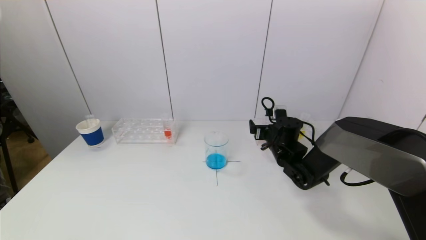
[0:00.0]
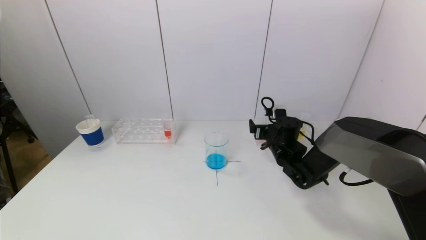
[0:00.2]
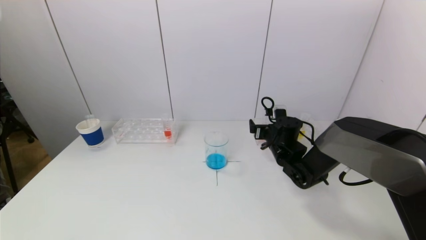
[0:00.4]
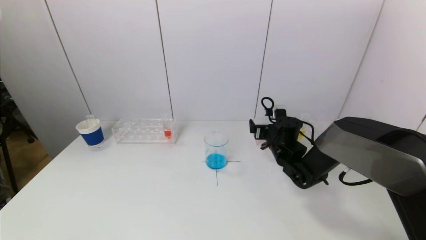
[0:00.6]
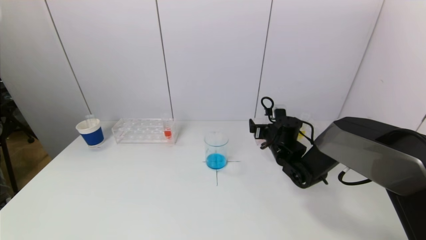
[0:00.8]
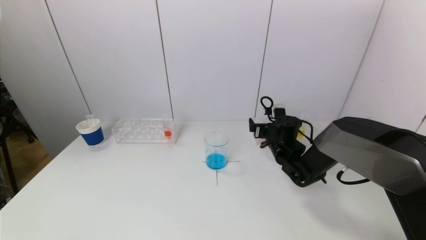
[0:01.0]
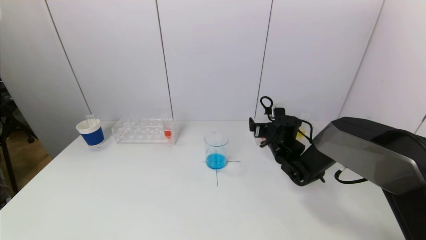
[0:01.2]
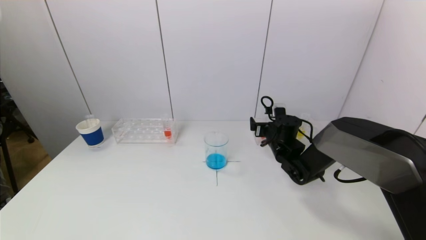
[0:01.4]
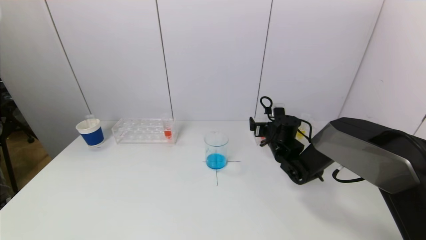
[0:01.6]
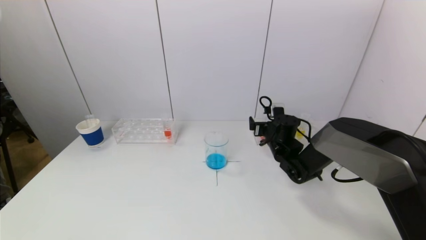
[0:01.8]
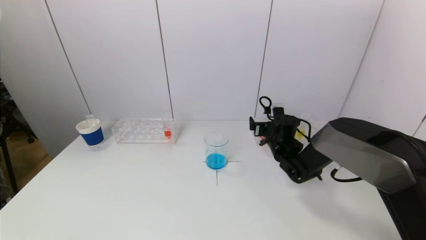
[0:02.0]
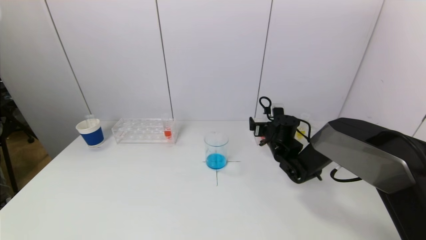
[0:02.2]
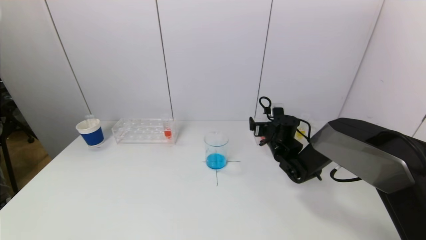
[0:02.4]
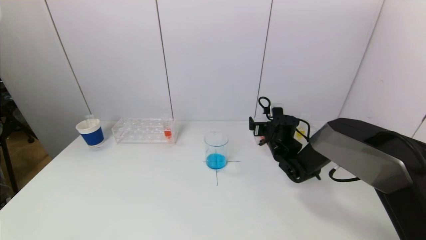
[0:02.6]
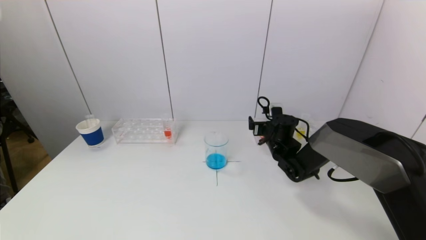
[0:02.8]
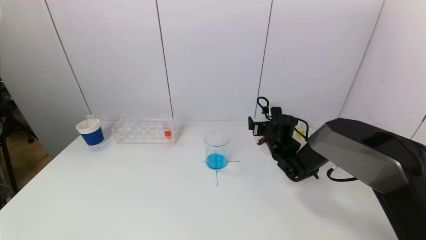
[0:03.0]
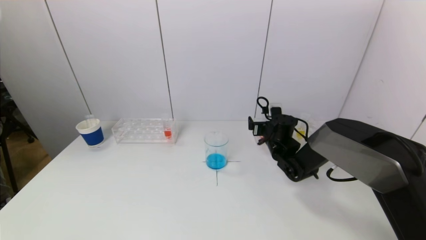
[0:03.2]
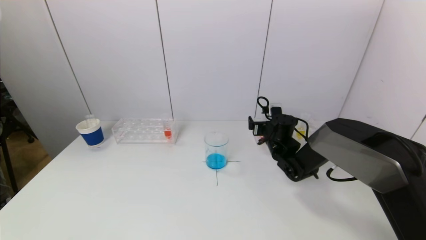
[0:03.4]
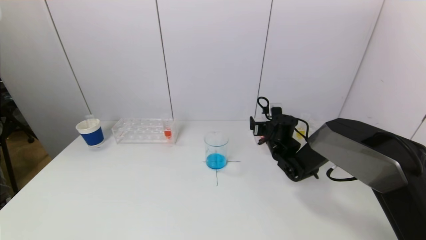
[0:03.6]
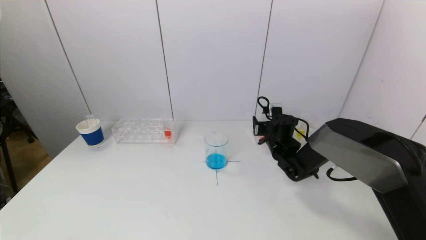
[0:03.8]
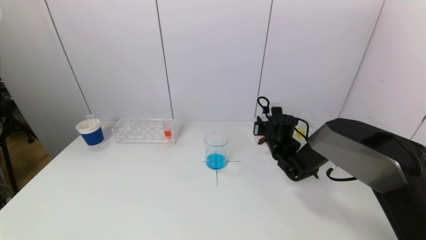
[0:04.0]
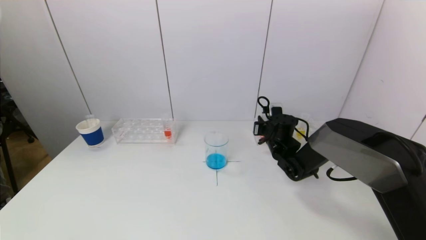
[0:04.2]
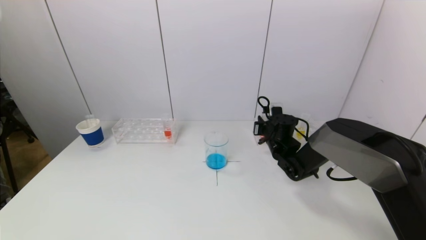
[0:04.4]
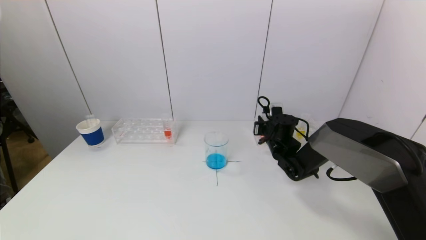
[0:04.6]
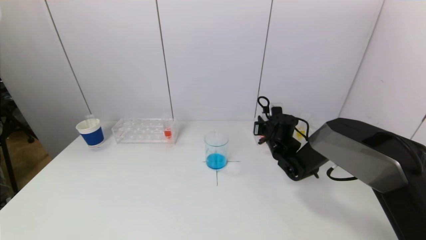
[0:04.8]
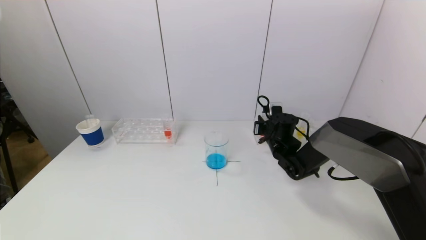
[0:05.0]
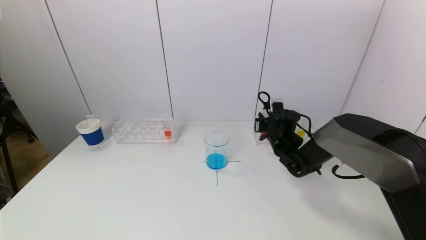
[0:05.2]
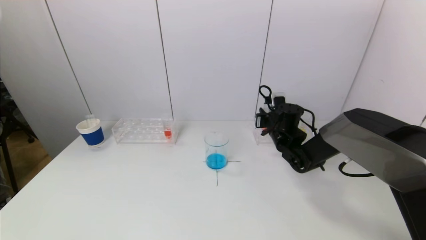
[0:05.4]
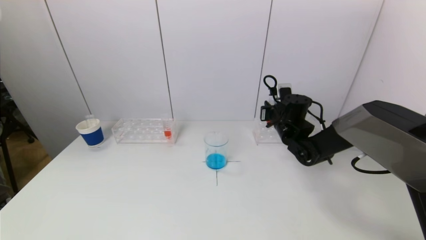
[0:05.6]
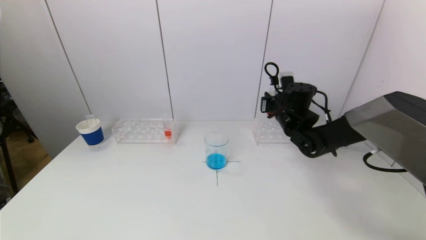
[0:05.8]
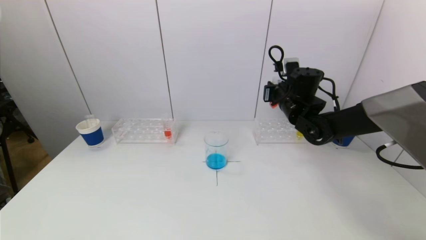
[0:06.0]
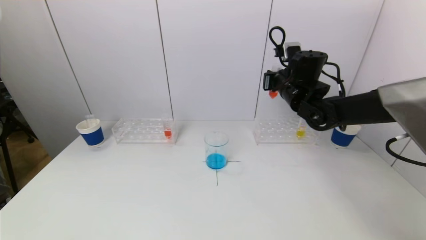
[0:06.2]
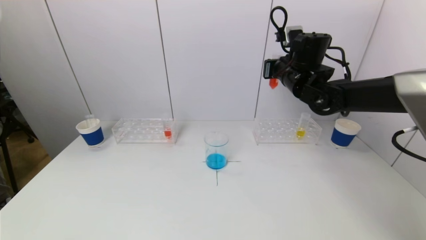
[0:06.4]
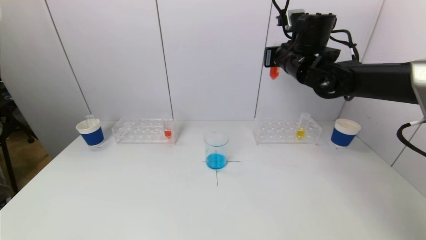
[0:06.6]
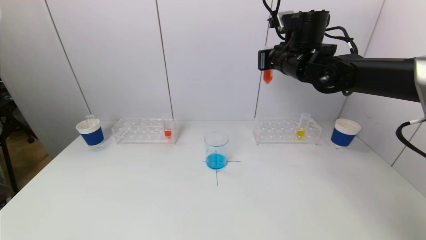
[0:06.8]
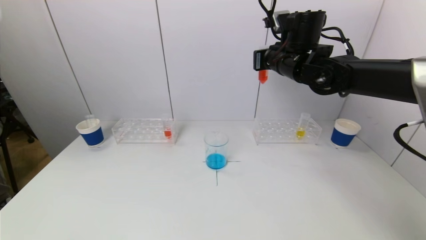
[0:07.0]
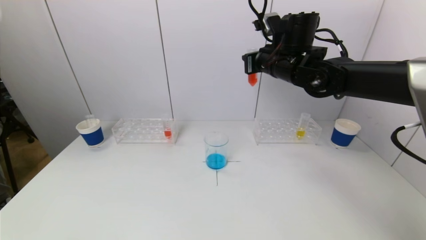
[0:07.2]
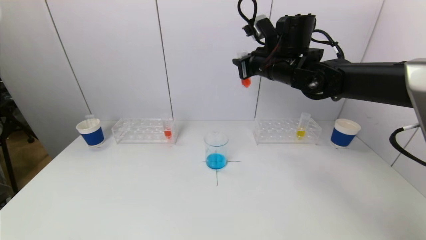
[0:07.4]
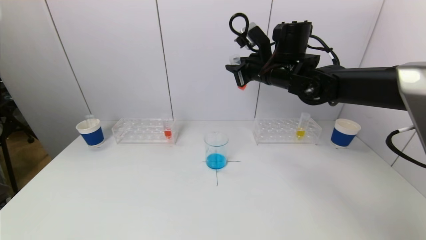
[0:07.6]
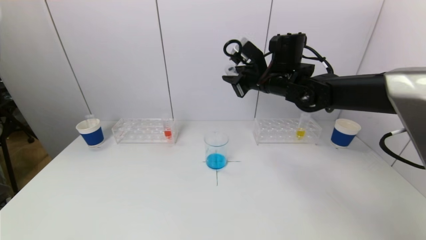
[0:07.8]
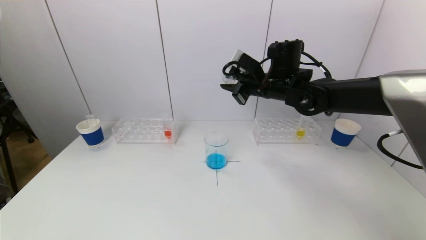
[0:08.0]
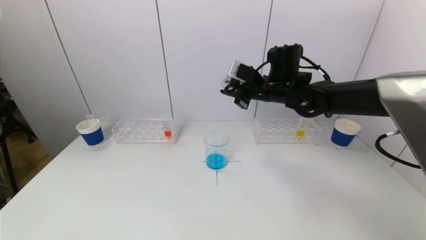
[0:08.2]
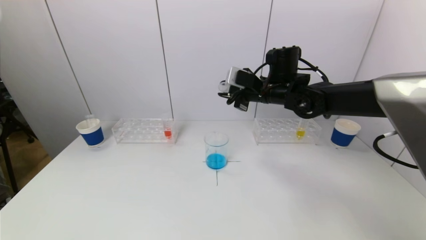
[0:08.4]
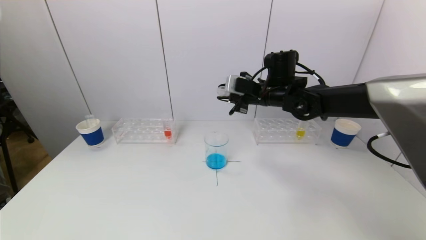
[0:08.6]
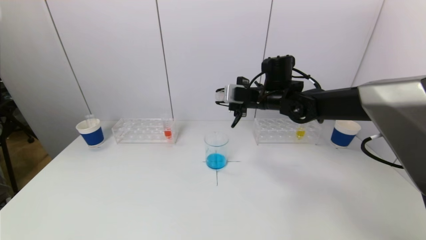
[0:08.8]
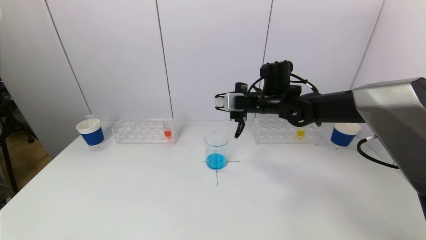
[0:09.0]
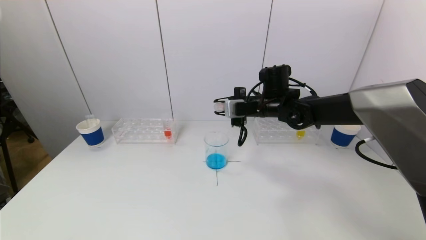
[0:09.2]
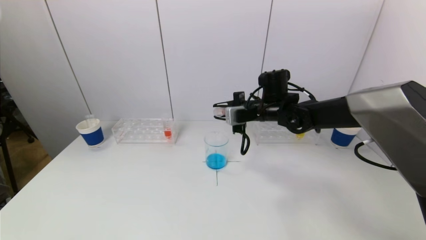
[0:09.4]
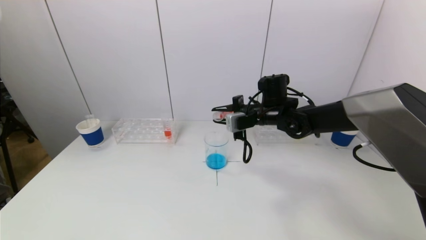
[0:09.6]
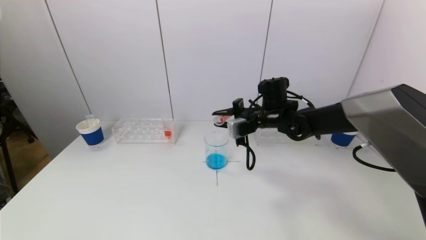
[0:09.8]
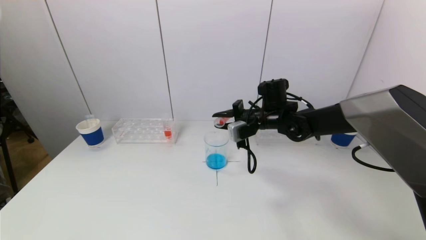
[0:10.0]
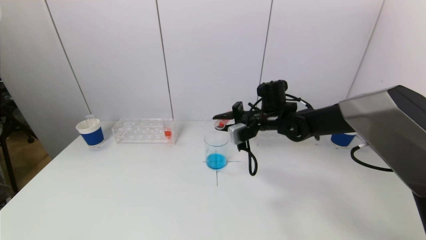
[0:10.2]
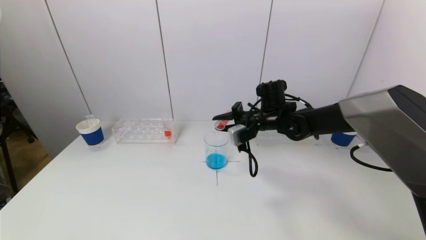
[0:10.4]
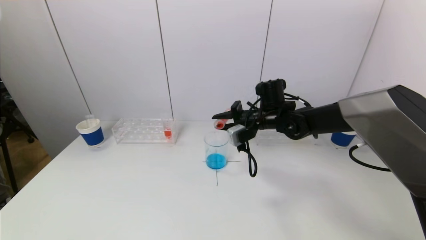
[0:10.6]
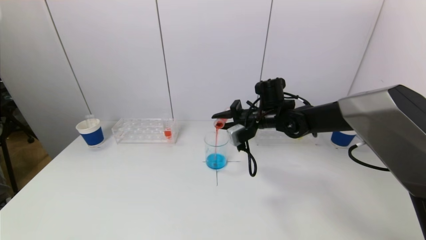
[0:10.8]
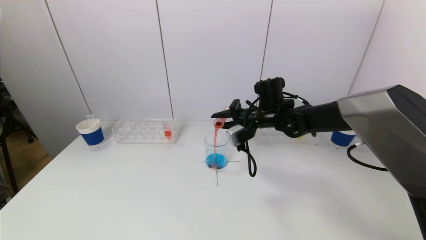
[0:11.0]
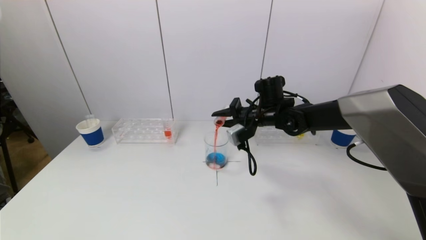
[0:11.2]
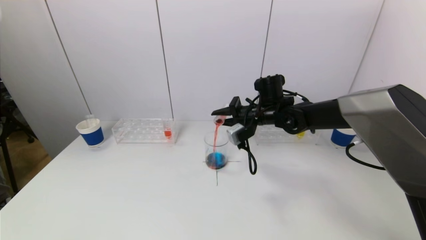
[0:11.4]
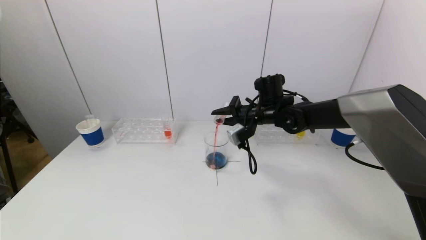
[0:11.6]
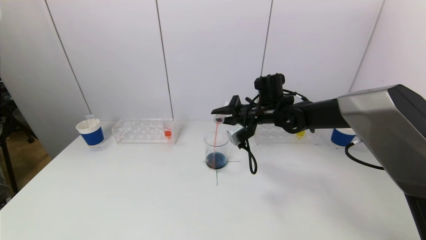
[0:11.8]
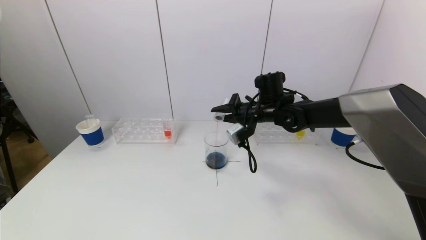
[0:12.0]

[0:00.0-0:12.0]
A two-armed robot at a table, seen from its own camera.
Task of the whole recording: pick up a test tube with pigment on left test tube rack and a test tube with pigment on right test tube rack by grippers and pour them into the beaker.
Step, 0:00.0 to 0:04.2: Grasp the red reagent with the right gripper.
0:00.0 to 0:01.6: The grippers make only small movements.
0:01.6 to 0:03.0: The two grippers keep their place.
0:04.4 to 0:06.0: The right gripper goes about 15 cm upward.
0:06.0 to 0:07.6: The right gripper is displaced upward and to the left by about 10 cm.
0:07.6 to 0:09.0: The right gripper shifts some 10 cm downward.
0:10.4 to 0:12.0: The grippers make only small movements.

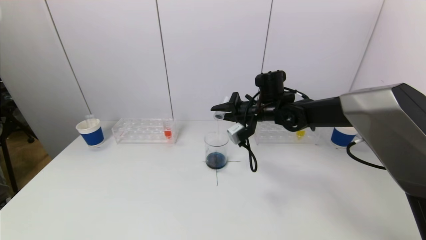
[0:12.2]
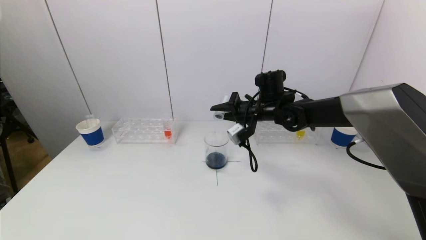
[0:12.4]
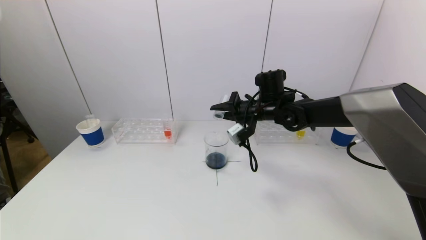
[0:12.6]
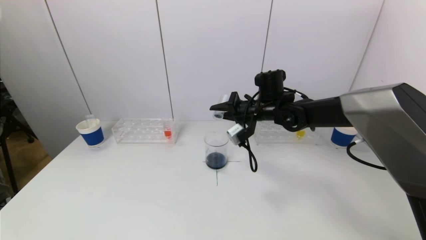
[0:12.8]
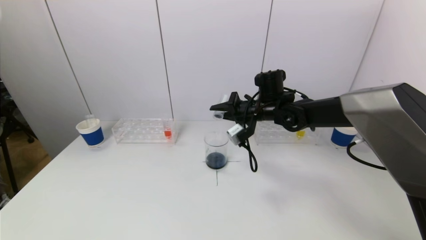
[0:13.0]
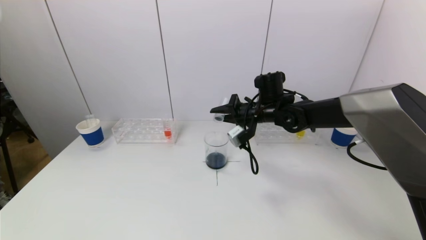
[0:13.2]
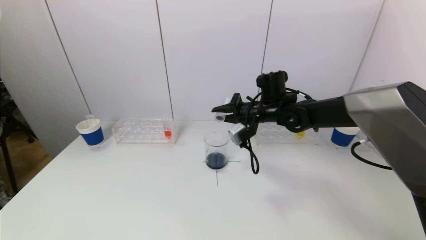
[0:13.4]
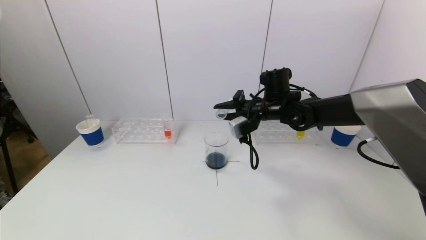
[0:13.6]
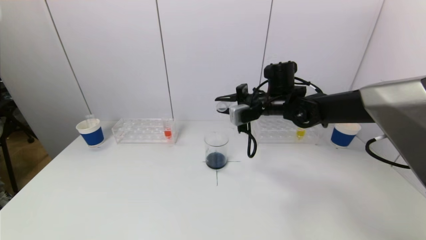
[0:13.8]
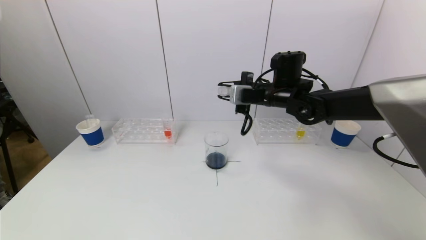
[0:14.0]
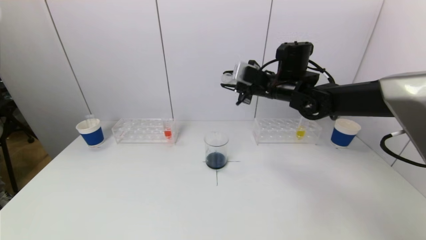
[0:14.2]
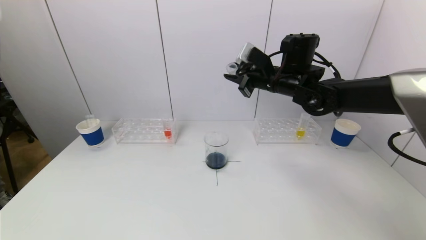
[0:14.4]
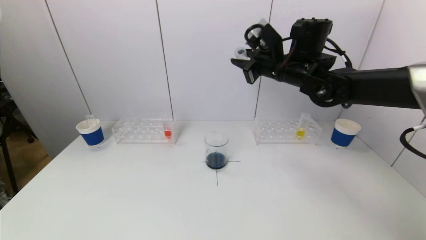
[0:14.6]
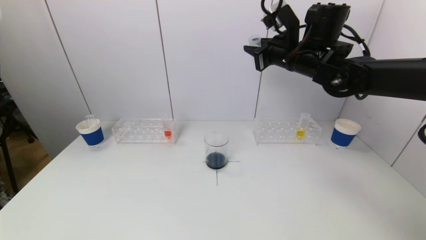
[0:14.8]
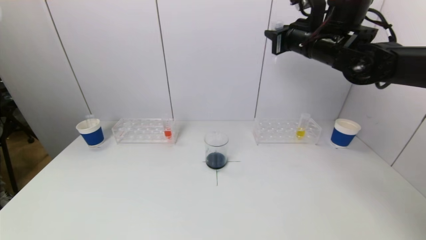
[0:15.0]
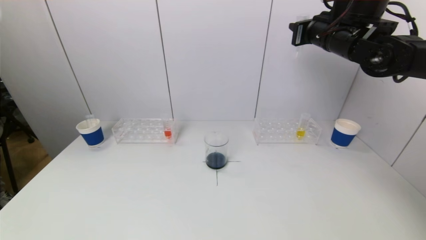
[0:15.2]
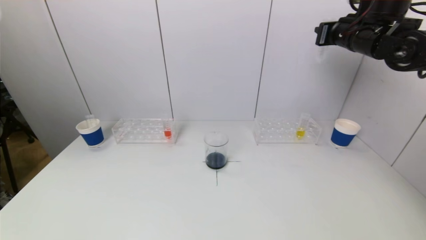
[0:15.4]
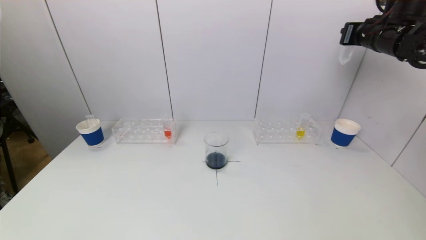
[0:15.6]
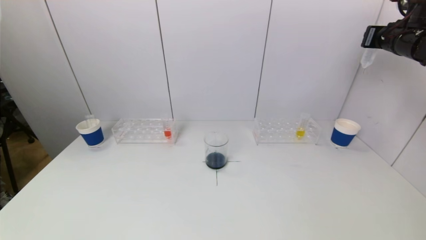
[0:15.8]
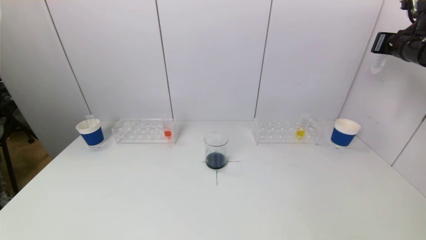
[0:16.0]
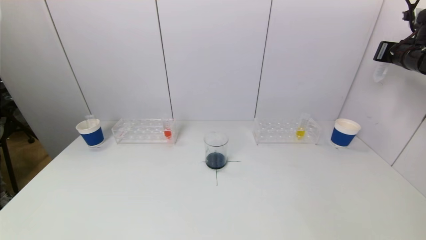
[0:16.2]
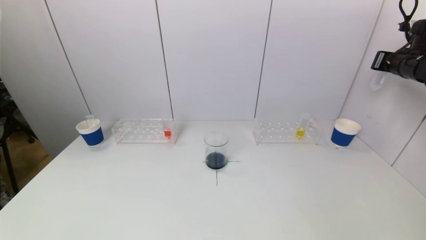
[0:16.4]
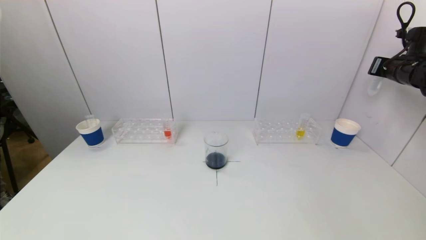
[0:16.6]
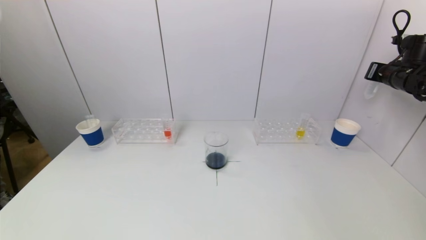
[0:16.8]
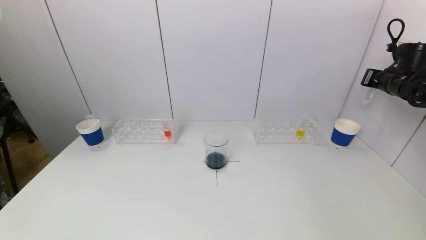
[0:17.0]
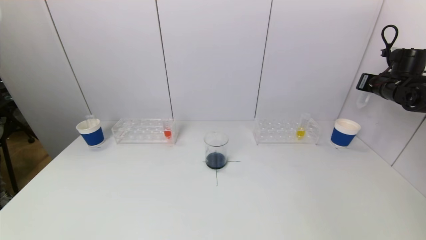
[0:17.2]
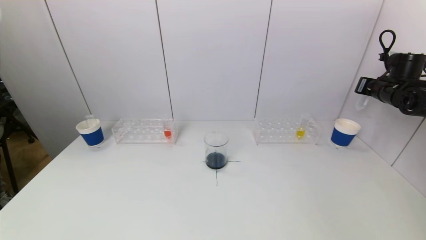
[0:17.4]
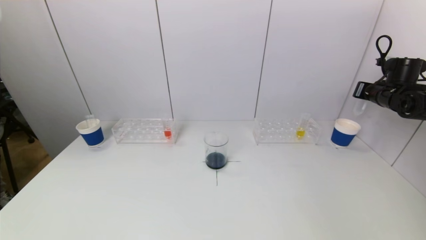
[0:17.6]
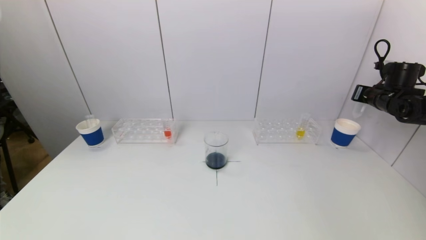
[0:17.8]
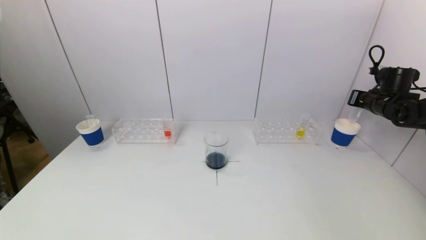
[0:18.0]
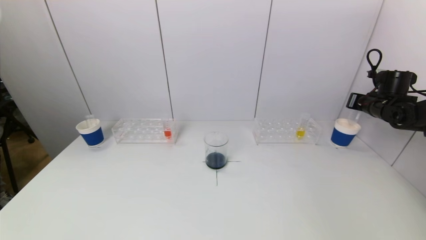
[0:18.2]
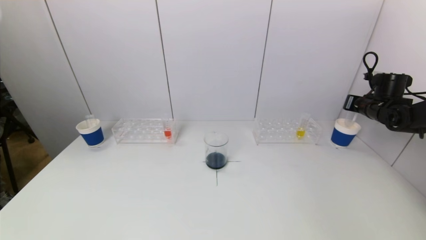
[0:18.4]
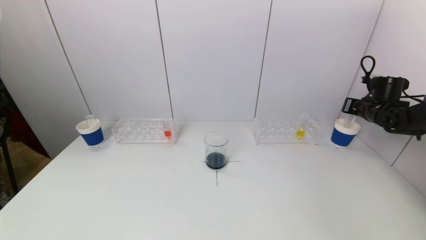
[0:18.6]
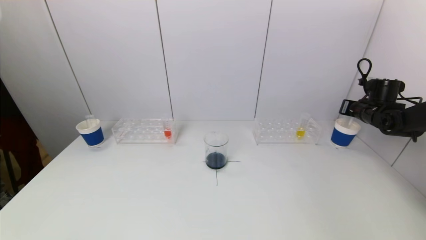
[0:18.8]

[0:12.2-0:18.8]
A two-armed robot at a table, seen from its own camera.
Task of the whole recording: pick up a test tube with pigment on left test tube rack and a test tube with pigment on right test tube rack by grippers and pour them into the beaker.
0:13.8 to 0:15.4: The right gripper is displaced to the right and upward by approximately 20 cm.
0:15.4 to 0:17.2: The right gripper goes approximately 20 cm to the right and downward.
0:17.2 to 0:18.8: The right gripper shifts some 10 cm downward.
